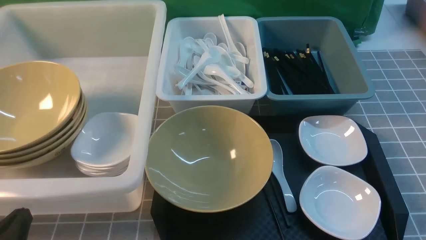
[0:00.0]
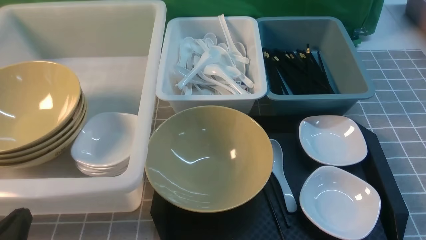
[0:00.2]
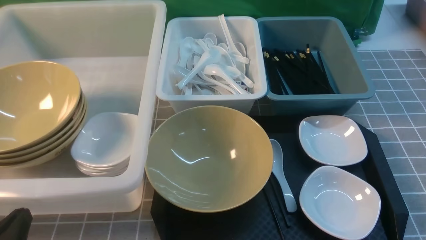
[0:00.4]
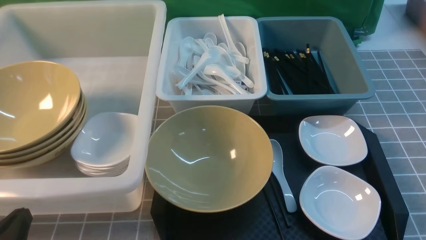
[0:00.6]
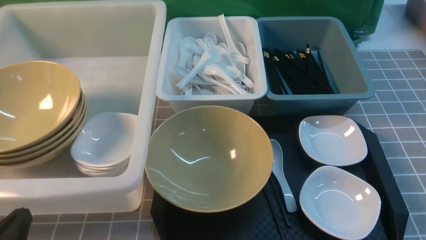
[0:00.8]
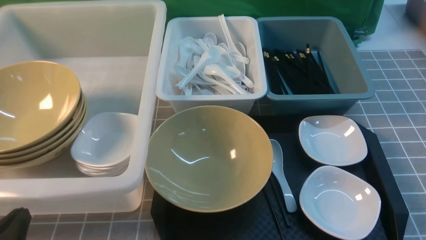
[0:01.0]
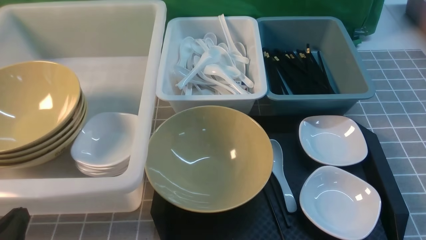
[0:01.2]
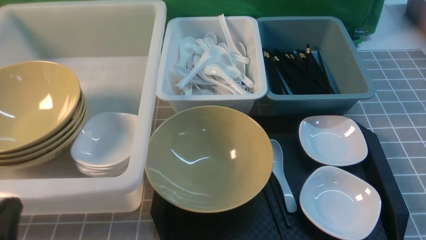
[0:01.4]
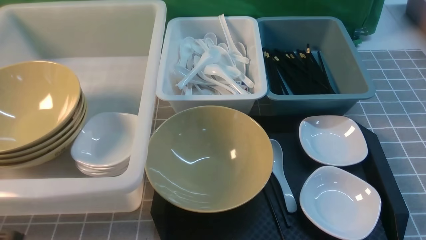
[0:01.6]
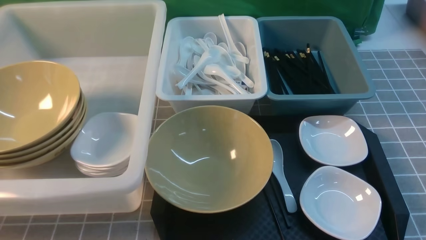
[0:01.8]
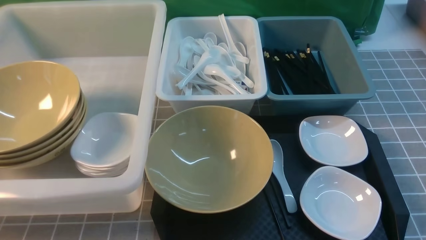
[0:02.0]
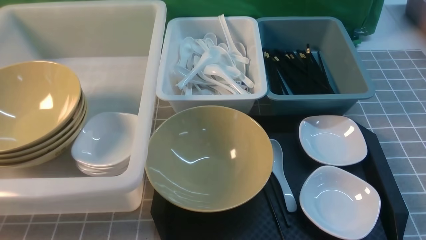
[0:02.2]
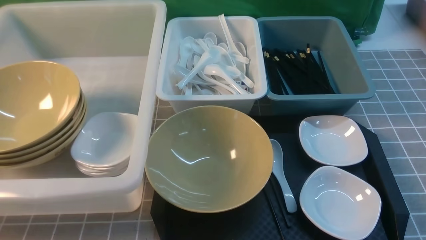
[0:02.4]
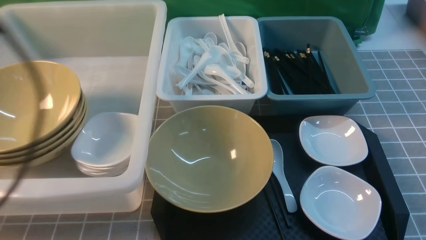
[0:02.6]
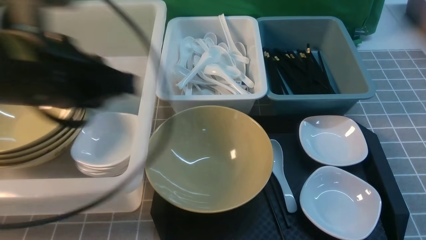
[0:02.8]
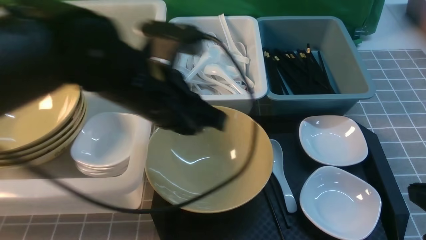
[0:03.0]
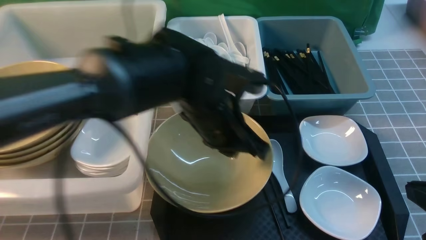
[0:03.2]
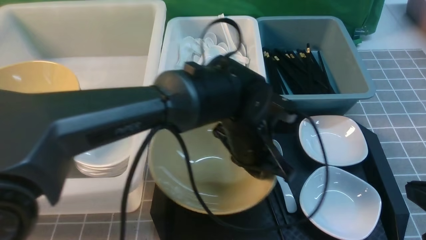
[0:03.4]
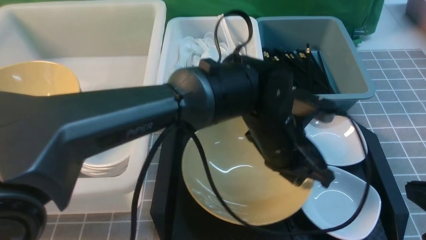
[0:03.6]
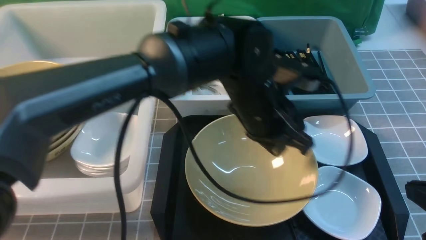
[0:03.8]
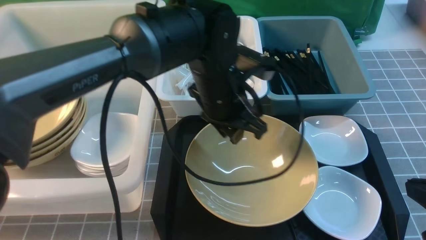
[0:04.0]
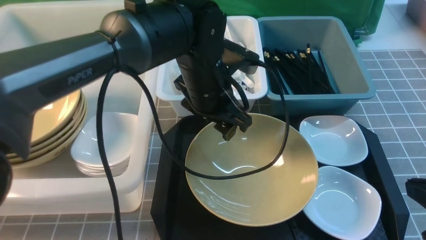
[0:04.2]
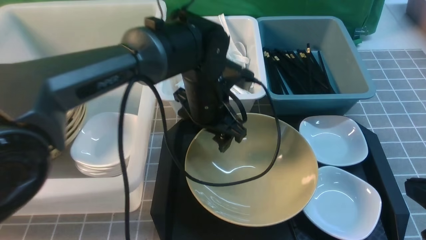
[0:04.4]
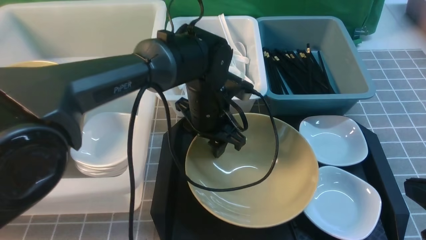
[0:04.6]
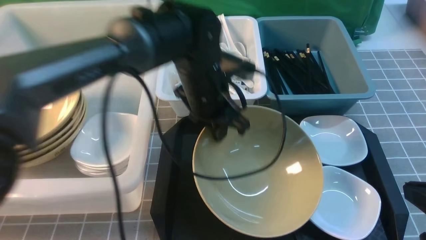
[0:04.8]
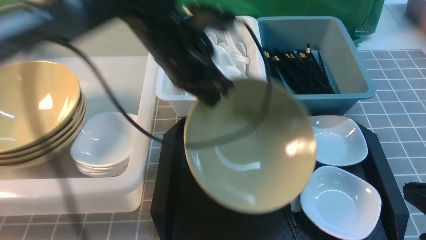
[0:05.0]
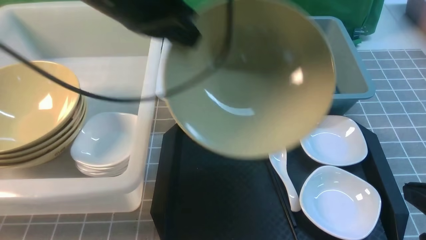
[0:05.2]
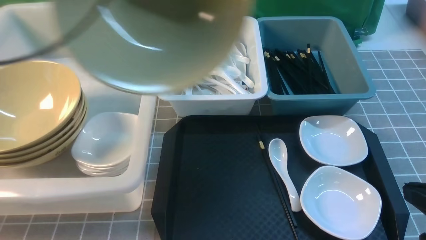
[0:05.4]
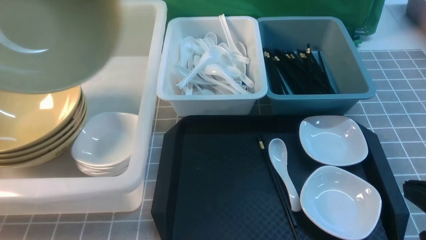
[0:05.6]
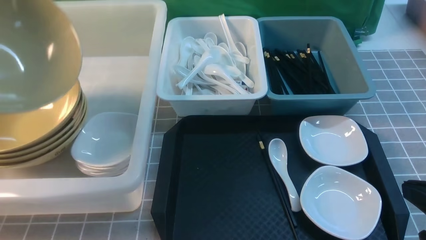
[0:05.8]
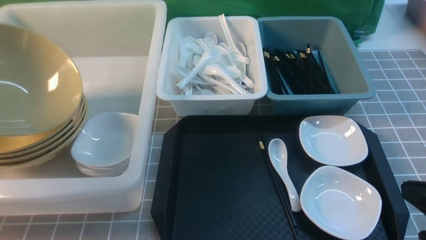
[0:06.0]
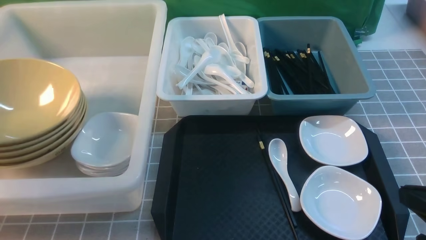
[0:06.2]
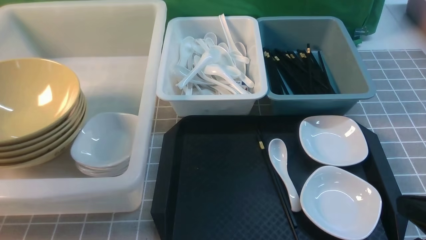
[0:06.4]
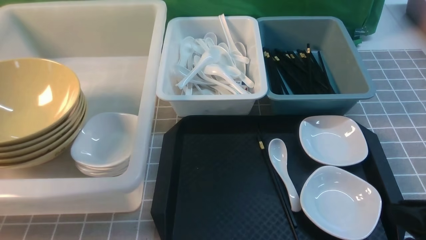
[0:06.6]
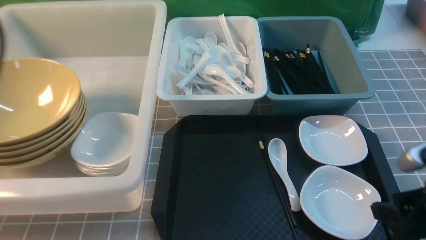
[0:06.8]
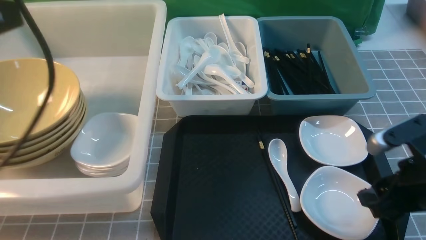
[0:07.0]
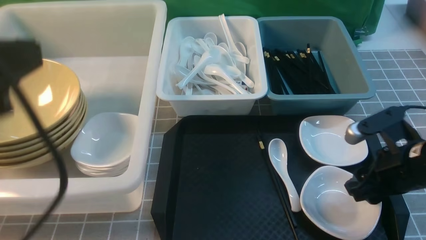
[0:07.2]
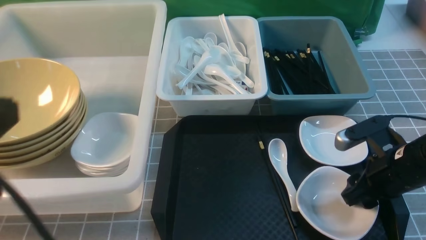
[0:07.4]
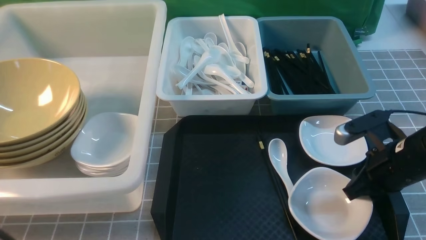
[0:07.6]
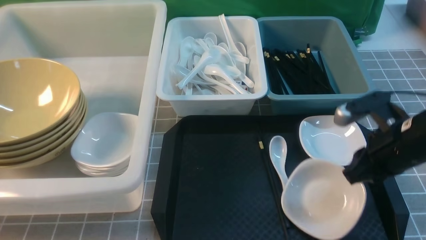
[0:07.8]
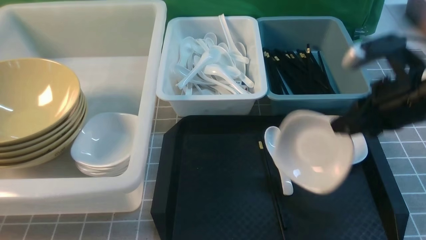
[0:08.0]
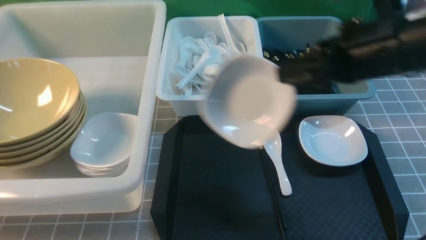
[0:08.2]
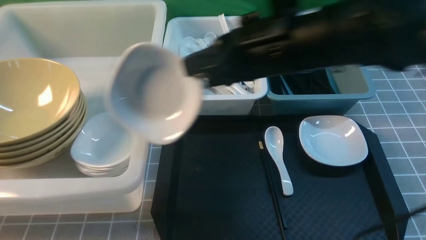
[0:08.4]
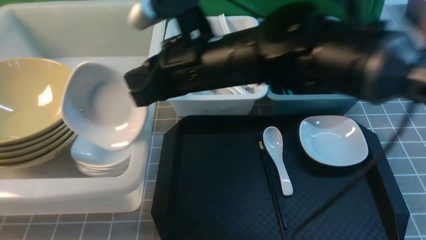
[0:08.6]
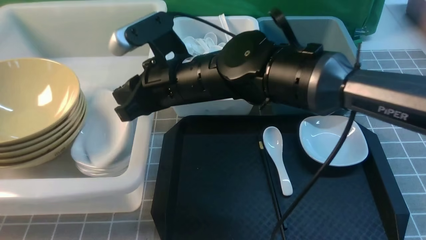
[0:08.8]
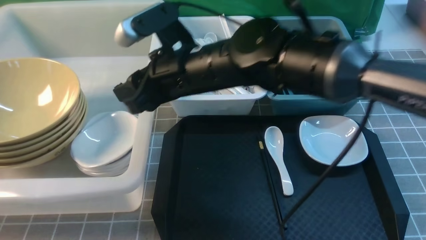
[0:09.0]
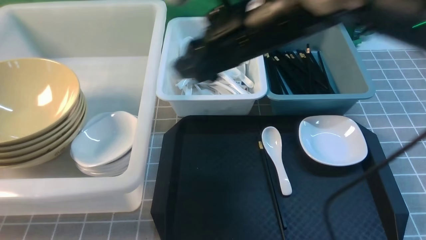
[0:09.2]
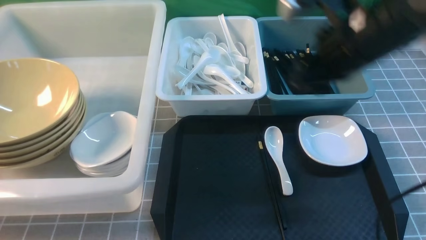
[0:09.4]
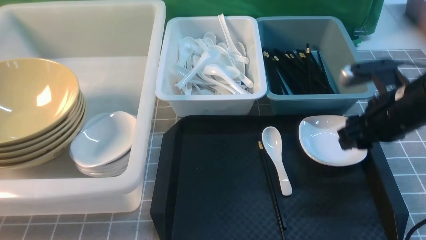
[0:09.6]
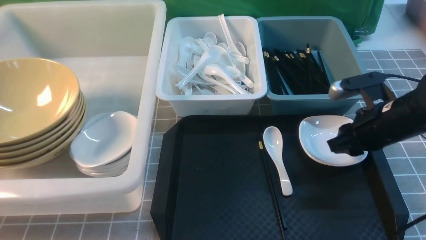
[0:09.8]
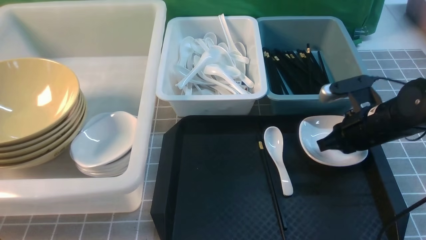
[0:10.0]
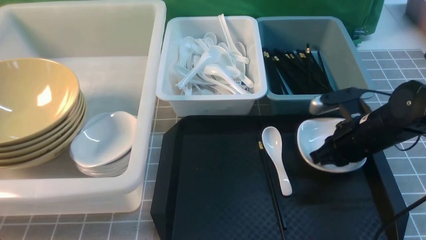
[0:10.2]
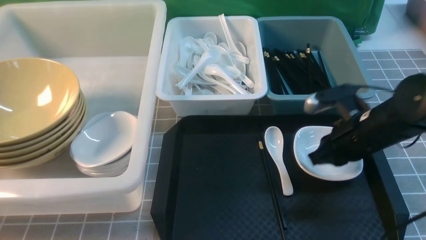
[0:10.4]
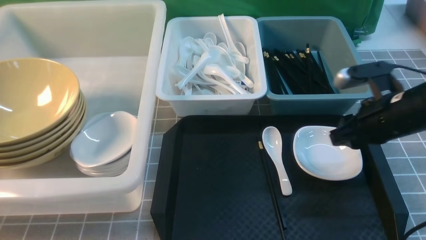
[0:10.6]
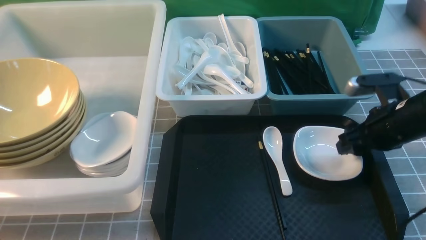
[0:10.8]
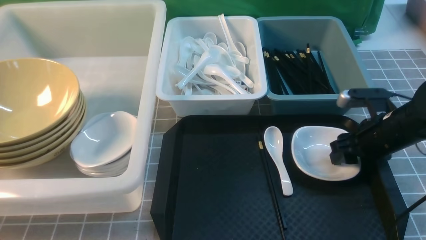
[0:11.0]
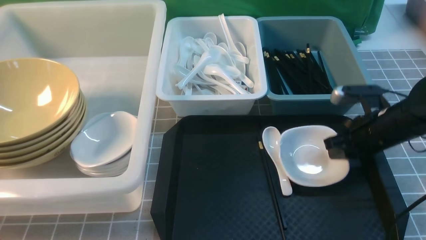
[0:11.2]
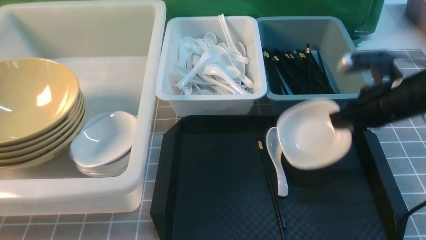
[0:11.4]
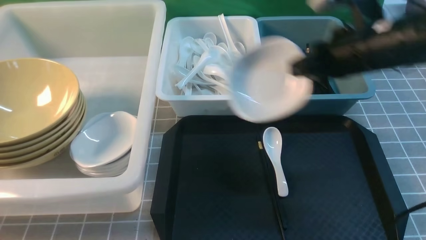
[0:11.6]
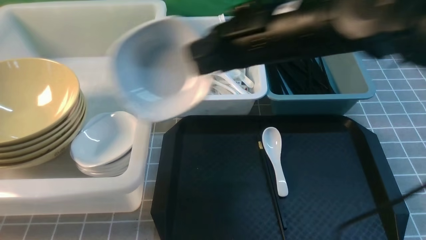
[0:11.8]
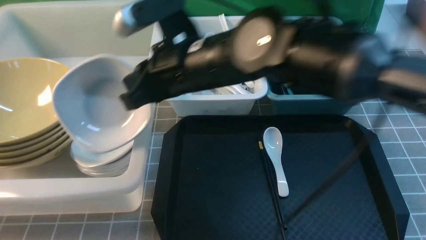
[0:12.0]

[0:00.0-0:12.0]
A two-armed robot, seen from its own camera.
Task of the whole recording: on grey table put chopsticks spoon bowls plates into blue grey white boxes.
Step, 0:00.0 to 0:05.0: use the left arm to grab the yellow noodle bowl on the left.
Step, 0:05.2 to 0:06.6: use the left arm to put the noodle bowl into the large storage box on the left.
Step, 0:06.8 to 0:07.8: use the right arm to grab the plate.
Step, 0:08.2 to 0:09.0: use the right arm to put the plate into the large storage box on the left.
Step, 0:09.2 to 0:11.4: use the right arm to grab the plate.
0:01.6 to 0:03.0: The right gripper travels forward by some 5 cm; the left gripper heads forward, to the right and upward, covering roughly 30 cm.
0:03.0 to 0:04.4: The left gripper shifts some 10 cm forward and downward, and opens.
0:04.4 to 0:06.0: The left gripper shifts roughly 40 cm to the left, and closes its fingers.
0:06.0 to 0:07.6: The left gripper goes roughly 25 cm backward and to the right, and opens and closes again. Meanwhile the right gripper is displaced forward by some 15 cm, and opens its fingers.
0:07.6 to 0:09.0: The right gripper goes approximately 30 cm to the left and upward, and opens up. Meanwhile the left gripper heads downward, covering some 5 cm.
0:09.0 to 0:10.4: The right gripper heads to the right and downward, covering approximately 25 cm, and closes its fingers.
0:10.4 to 0:12.0: The right gripper goes roughly 25 cm to the left and upward, and opens, then closes once more.

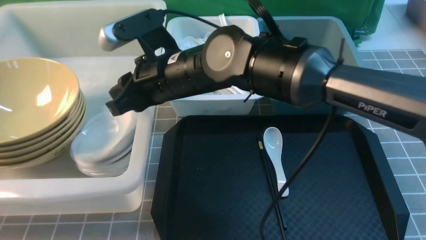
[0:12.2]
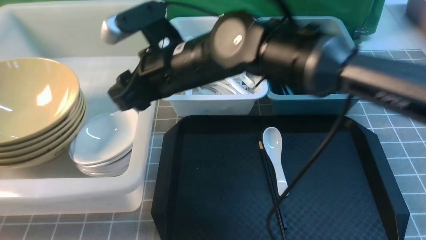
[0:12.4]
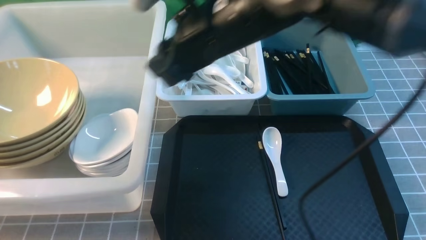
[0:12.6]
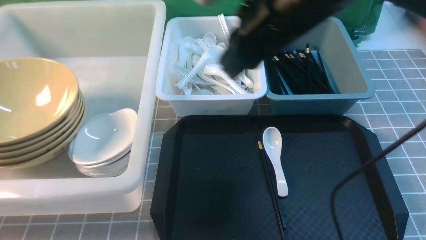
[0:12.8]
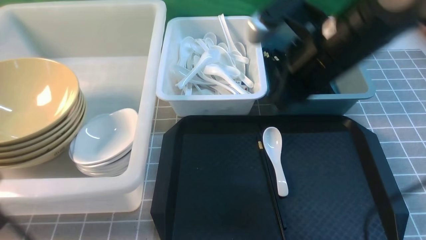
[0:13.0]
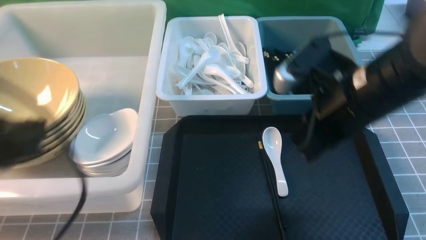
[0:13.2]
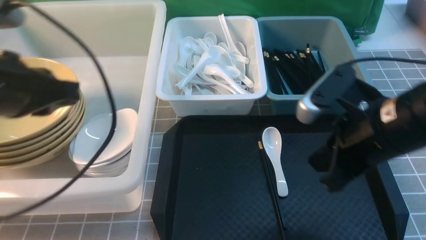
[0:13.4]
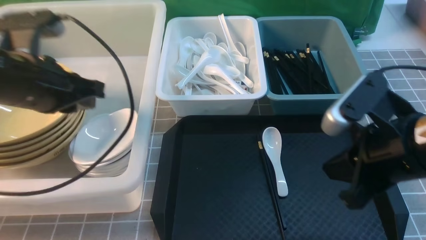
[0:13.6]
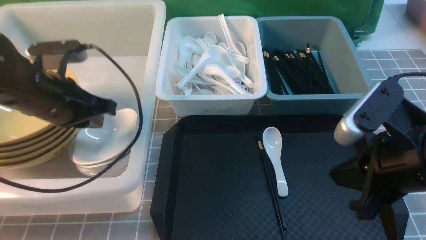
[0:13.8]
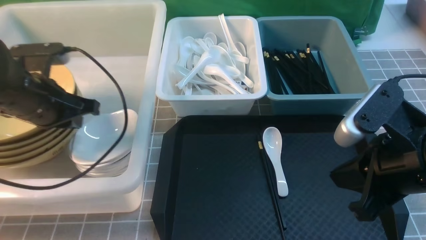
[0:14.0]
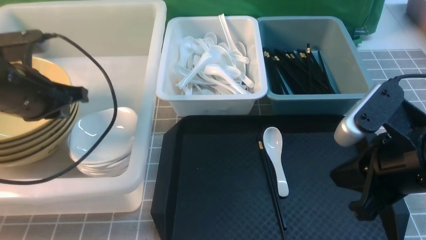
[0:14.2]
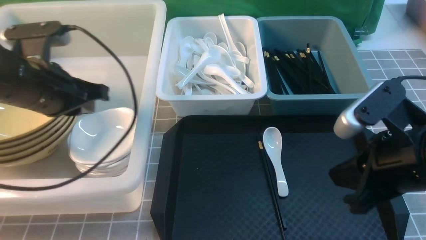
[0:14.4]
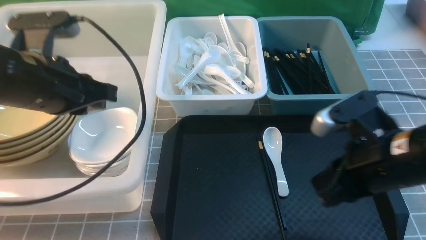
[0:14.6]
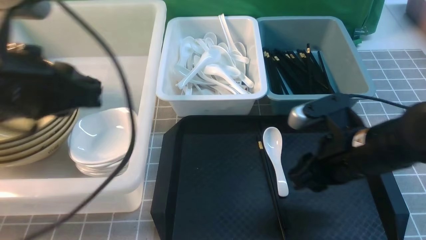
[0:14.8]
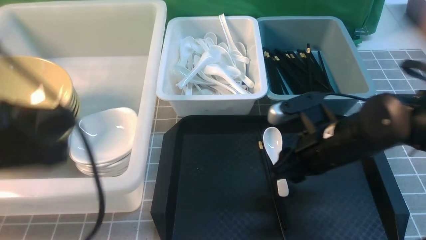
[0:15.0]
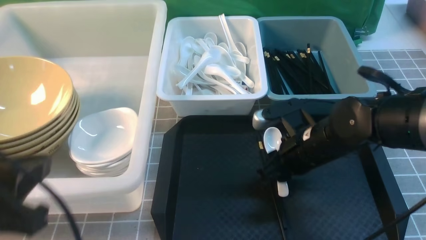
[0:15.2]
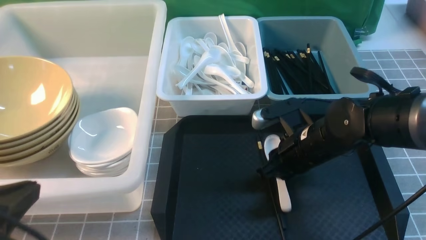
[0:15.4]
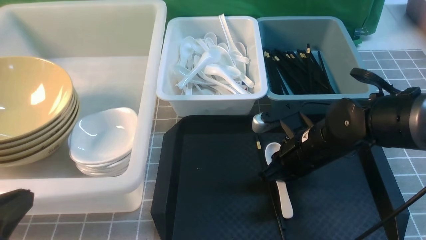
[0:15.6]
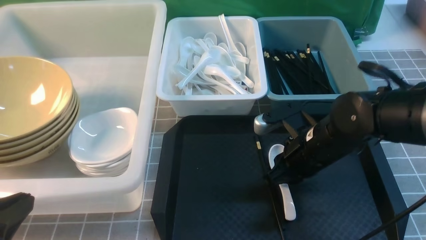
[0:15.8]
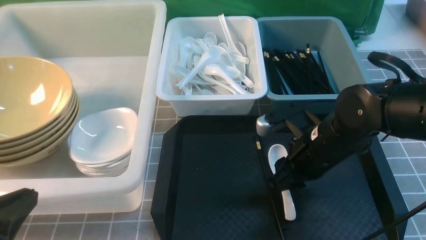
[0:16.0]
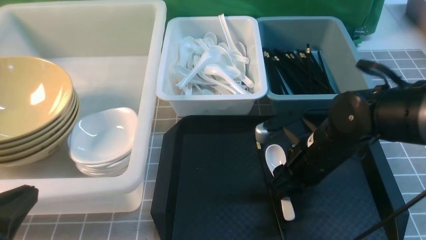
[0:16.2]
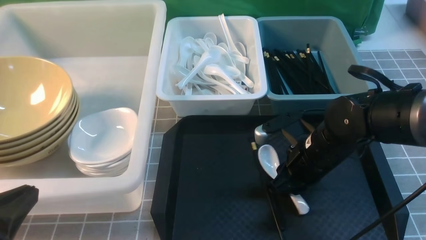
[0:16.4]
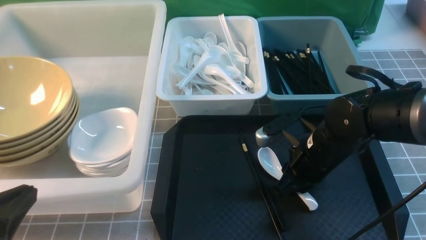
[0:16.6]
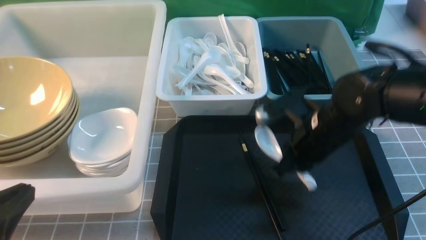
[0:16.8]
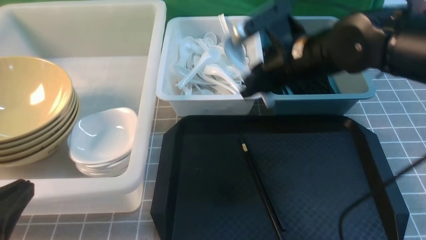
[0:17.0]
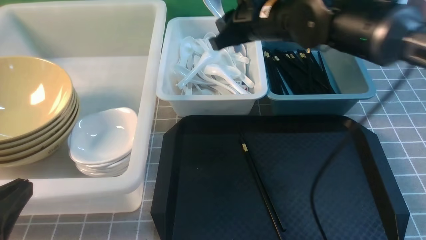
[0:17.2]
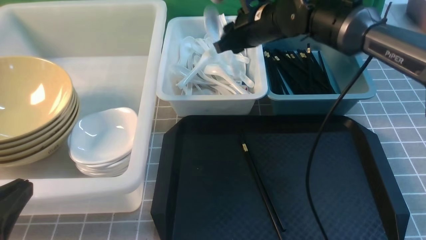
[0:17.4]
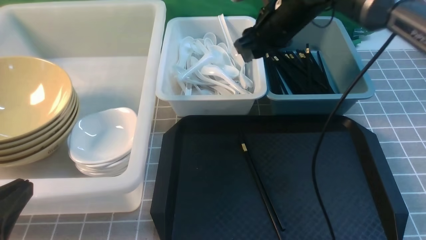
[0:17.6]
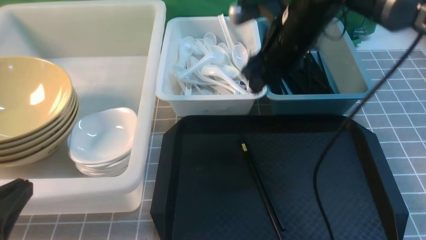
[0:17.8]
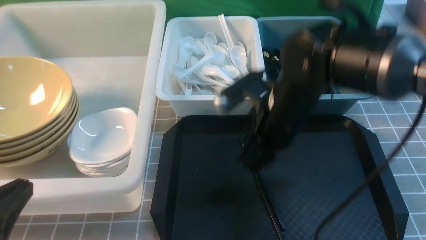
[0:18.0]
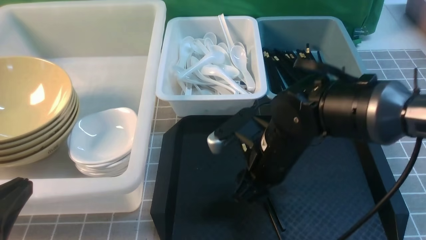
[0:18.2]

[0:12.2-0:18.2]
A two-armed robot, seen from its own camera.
Task of the whole recording: on grey table put chopsticks spoon bowls plates into blue grey white boxes.
Step, 0:12.6 to 0:16.8: use the right arm to grab the soup spoon in the middle.
Step, 0:17.0 to 0:17.8: use the right arm to put the soup spoon into the small storage box in the middle.
0:12.2 to 0:13.8: The right gripper goes about 30 cm to the right and backward, and closes, while the left gripper is displaced forward by approximately 25 cm.
0:13.8 to 0:15.2: The right gripper shifts about 15 cm downward, forward and to the left, and opens. The left gripper goes about 20 cm backward.
0:15.2 to 0:16.6: The left gripper shifts by approximately 5 cm.
0:16.6 to 0:18.2: The right gripper goes about 5 cm to the left, goes forward and returns, roughly 15 cm each way, and opens.
